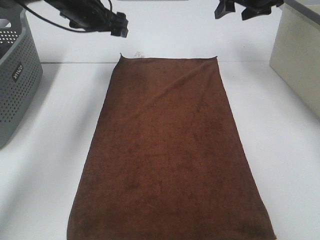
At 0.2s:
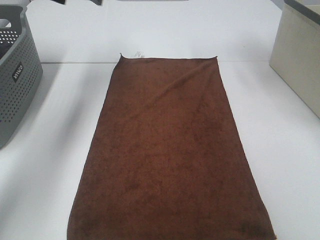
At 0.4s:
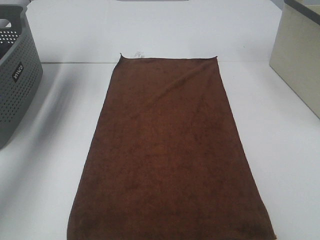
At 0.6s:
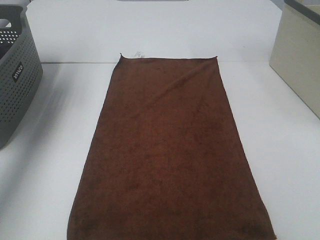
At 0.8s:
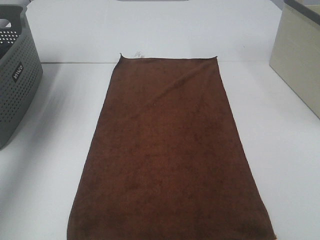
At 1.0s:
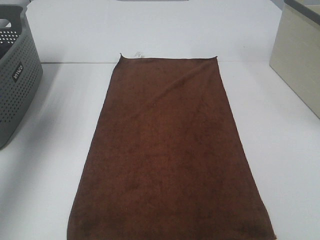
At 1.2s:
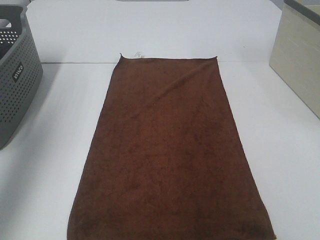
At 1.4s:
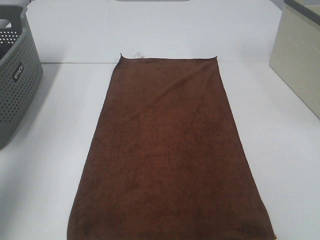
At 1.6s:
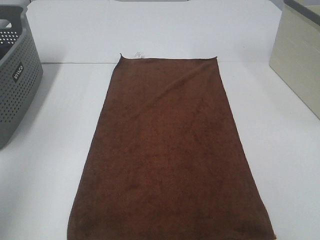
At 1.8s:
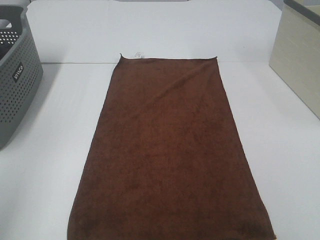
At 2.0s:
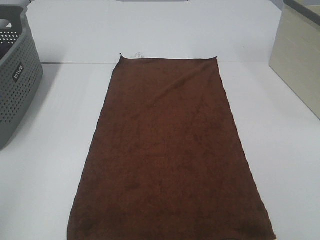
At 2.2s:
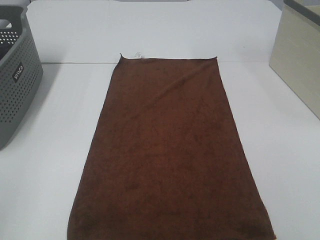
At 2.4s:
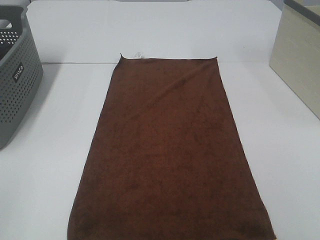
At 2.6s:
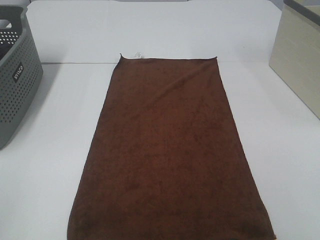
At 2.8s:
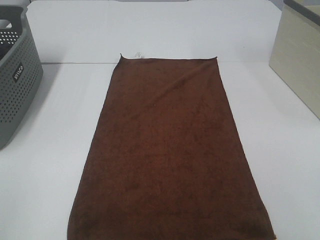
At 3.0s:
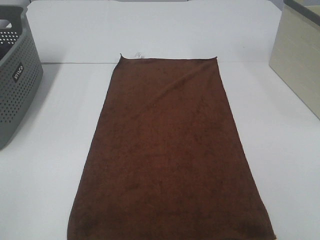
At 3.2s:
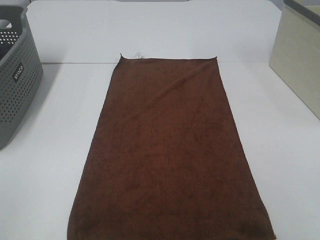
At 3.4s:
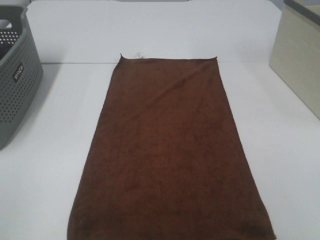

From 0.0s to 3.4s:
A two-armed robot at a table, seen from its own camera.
Task of the whole recording: Remove the towel and place it.
From 0.0s to 1.6s: Both grippers travel together backward, some 40 cm.
From 1.6s to 3.4s: The left gripper shifts about 15 cm backward and downward.

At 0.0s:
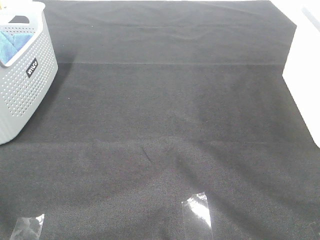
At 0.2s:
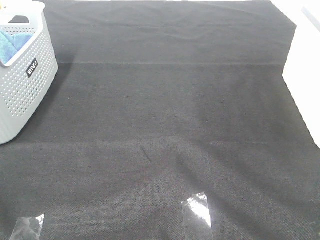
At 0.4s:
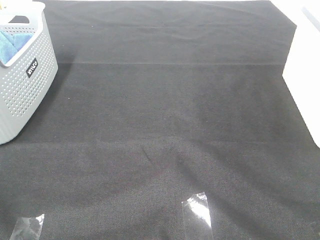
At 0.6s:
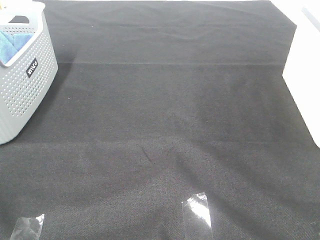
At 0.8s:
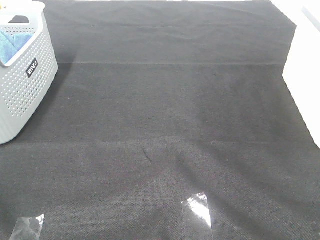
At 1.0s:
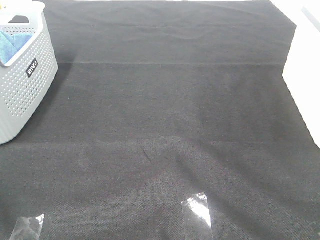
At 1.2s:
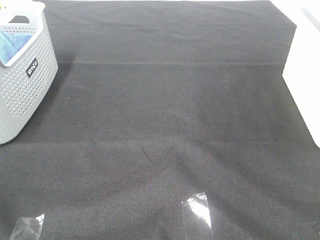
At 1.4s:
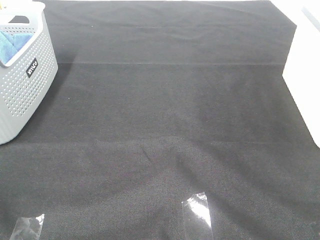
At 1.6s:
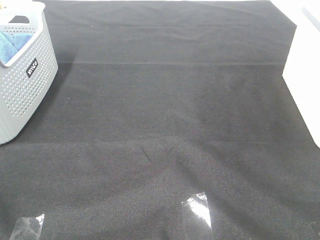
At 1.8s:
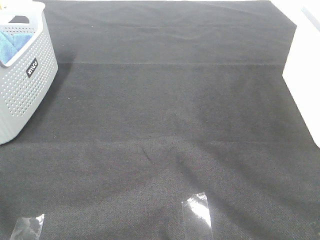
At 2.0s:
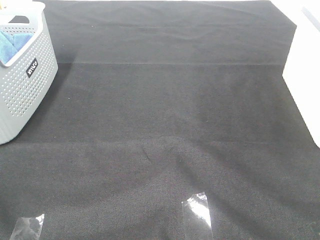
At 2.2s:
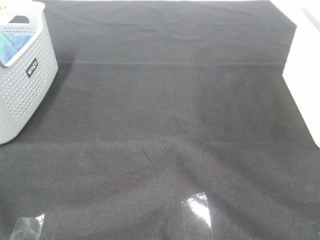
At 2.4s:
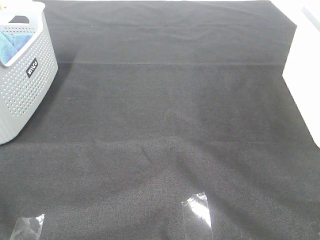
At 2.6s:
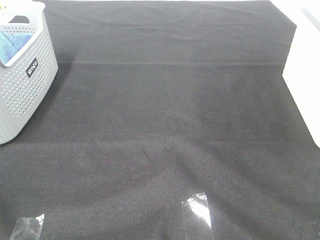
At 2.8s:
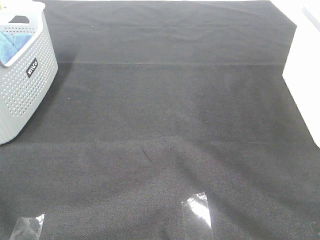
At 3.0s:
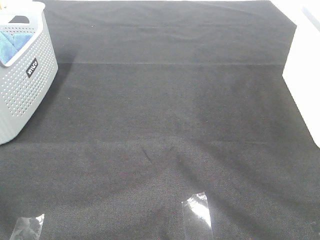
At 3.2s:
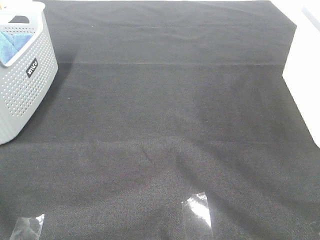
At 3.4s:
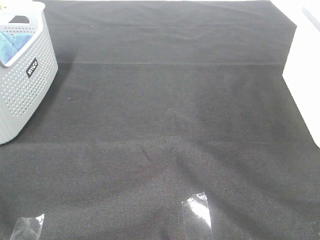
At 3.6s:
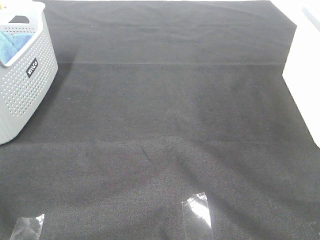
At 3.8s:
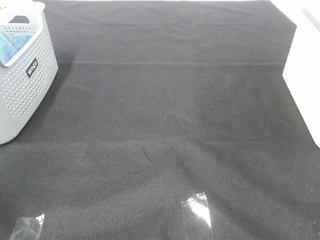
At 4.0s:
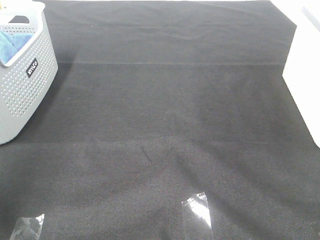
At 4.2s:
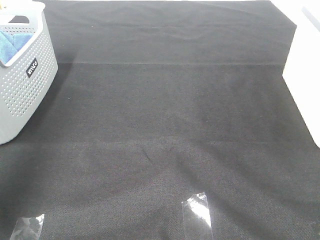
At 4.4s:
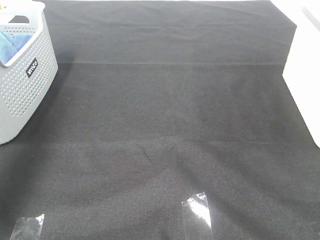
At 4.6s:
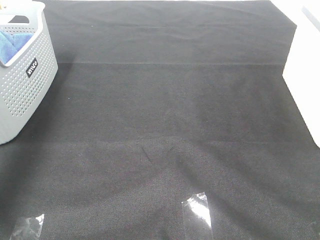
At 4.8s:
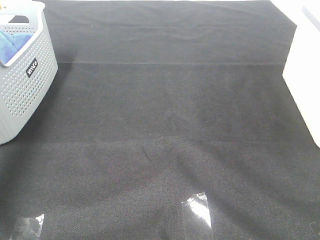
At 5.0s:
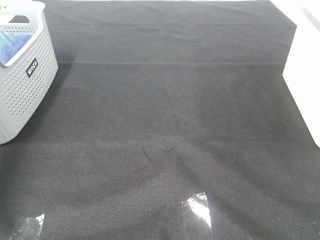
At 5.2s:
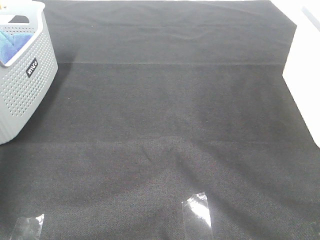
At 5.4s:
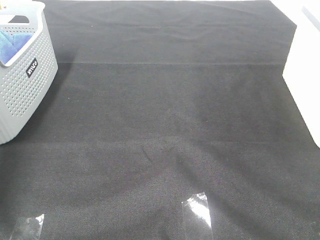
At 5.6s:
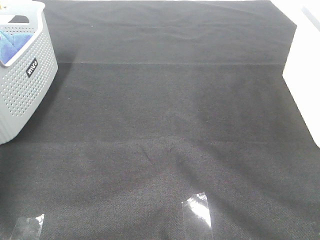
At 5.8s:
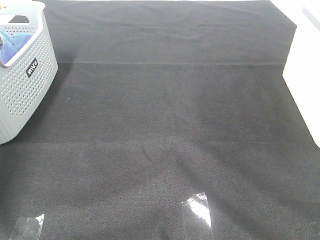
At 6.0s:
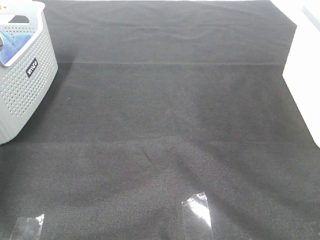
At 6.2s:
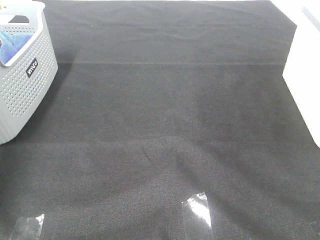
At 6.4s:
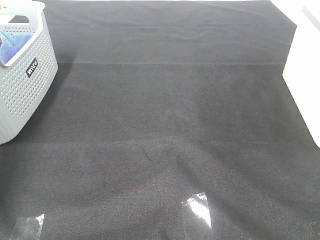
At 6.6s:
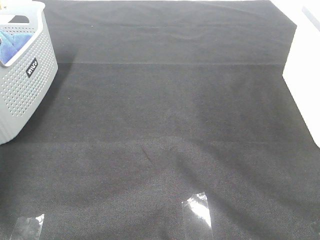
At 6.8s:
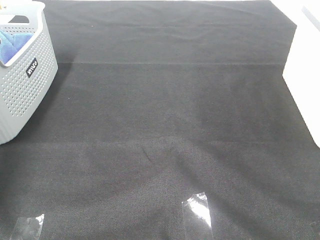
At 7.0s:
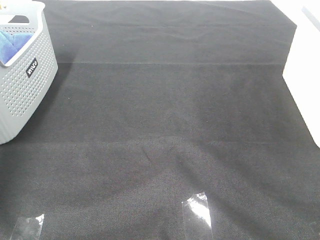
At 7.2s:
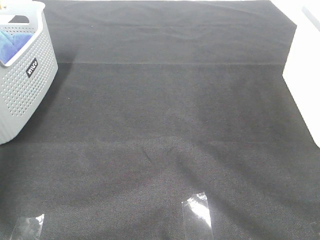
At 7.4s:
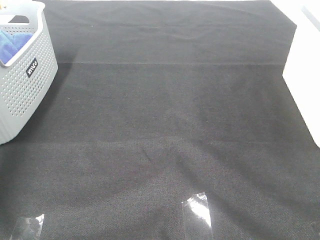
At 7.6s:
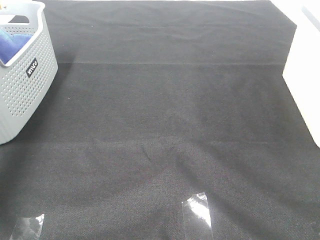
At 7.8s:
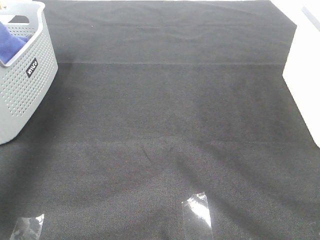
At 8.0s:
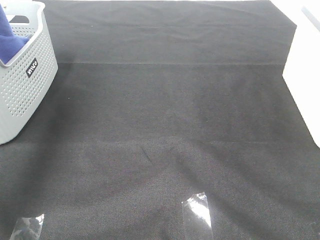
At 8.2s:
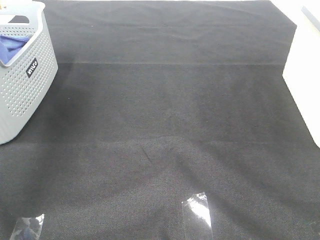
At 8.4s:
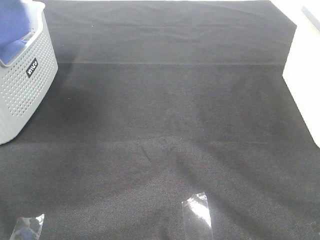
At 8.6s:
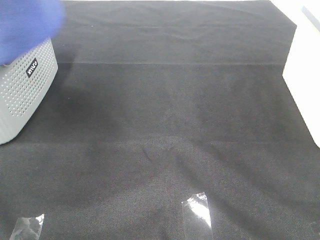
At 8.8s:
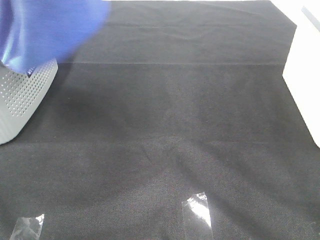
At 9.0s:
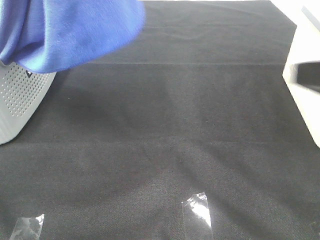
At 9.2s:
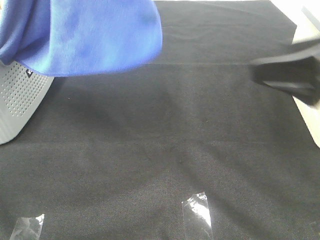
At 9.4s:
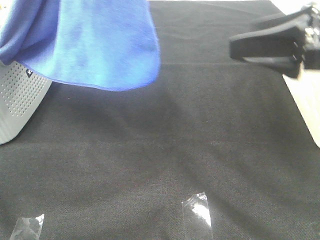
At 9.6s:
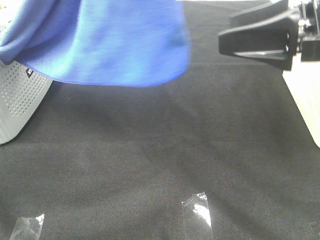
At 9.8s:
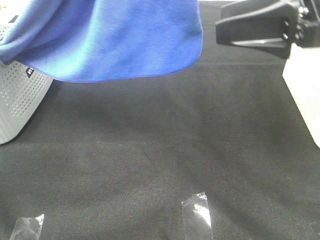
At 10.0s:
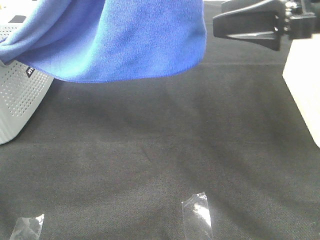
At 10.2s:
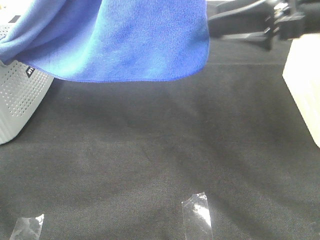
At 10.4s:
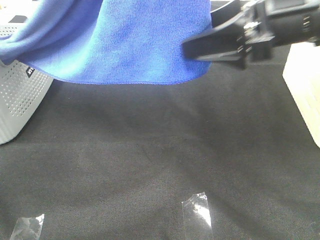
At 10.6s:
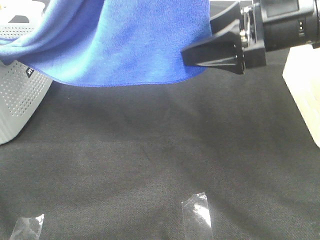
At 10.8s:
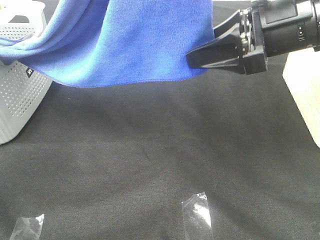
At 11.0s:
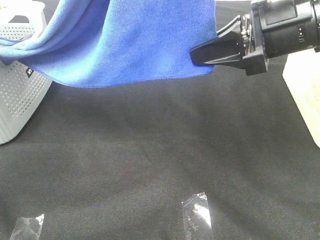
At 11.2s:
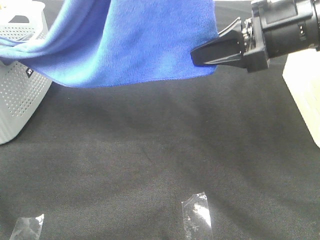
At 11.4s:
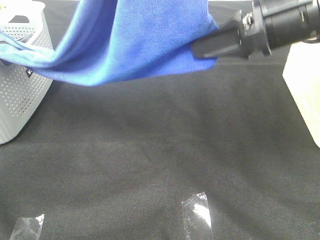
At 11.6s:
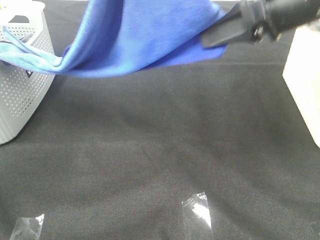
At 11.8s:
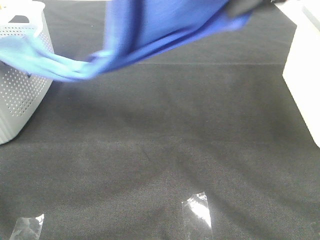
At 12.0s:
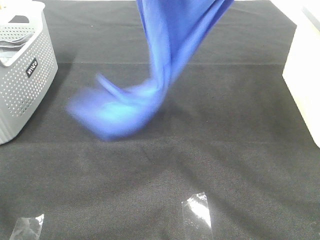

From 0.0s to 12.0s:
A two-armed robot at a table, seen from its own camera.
Task of the whole recording: Remove the towel and place it.
Step, from 7.6s to 10.6s: Right hand: grab a corner of the blue towel and straighten it.
From 0.0s to 3.0s: Both grippers stay about where they are.
From 3.0s to 4.4s: The left gripper travels forward and upward by roughly 35 cm.
From 4.4s to 6.0s: The left gripper shifts about 30 cm downward and forward, and closes up.
From 7.6s to 9.0s: The left gripper goes about 30 cm to the right, backward and upward. Meanwhile the right gripper heads forward, covering approximately 15 cm.
From 9.0s to 10.4s: The right gripper travels forward and to the left by approximately 15 cm, while the left gripper moves to the right, approximately 10 cm.
From 10.4s to 12.0s: The left gripper travels forward by some 10 cm. The right gripper travels upward by some 15 cm, and closes its fingers.

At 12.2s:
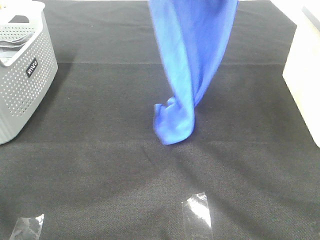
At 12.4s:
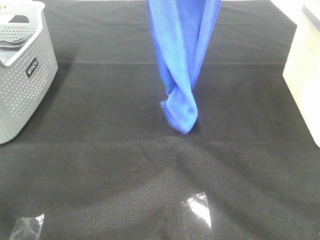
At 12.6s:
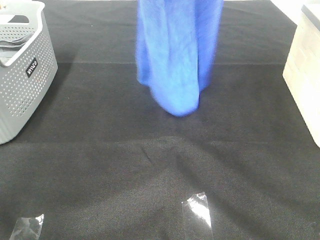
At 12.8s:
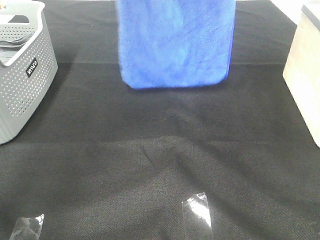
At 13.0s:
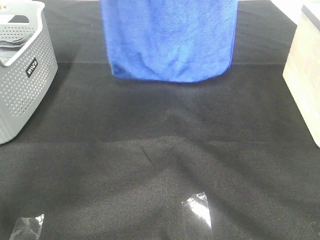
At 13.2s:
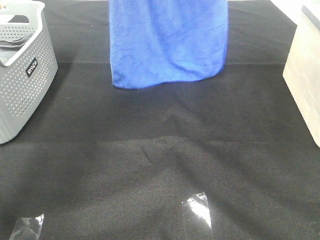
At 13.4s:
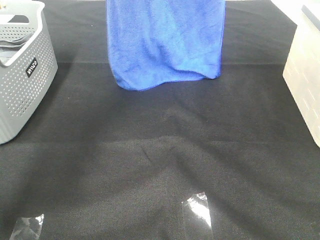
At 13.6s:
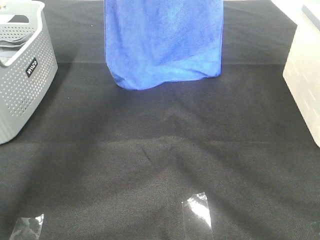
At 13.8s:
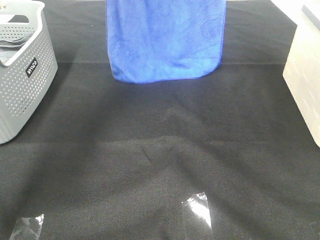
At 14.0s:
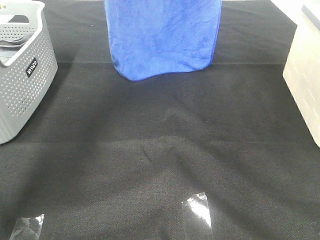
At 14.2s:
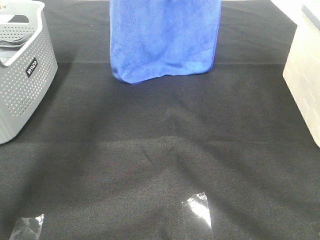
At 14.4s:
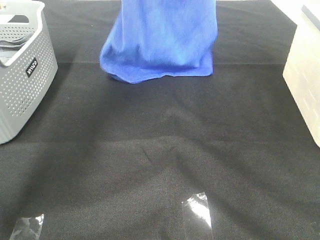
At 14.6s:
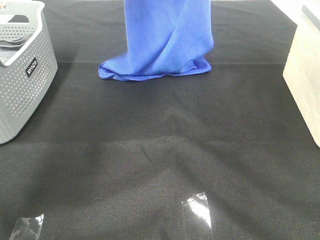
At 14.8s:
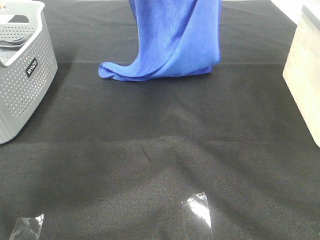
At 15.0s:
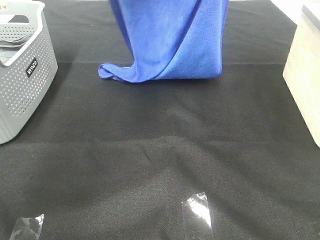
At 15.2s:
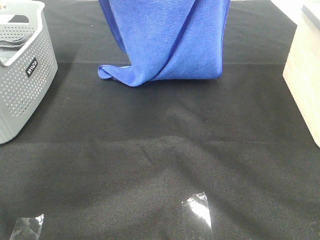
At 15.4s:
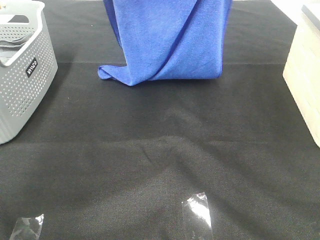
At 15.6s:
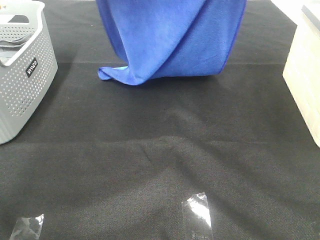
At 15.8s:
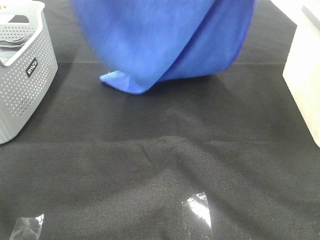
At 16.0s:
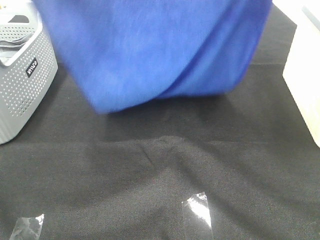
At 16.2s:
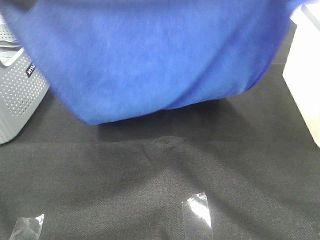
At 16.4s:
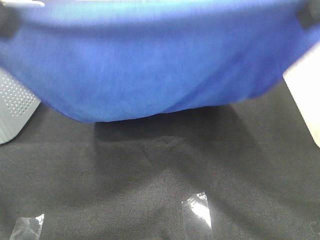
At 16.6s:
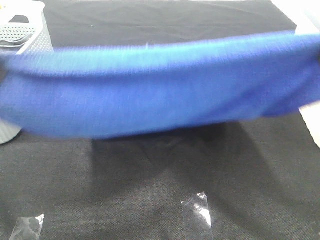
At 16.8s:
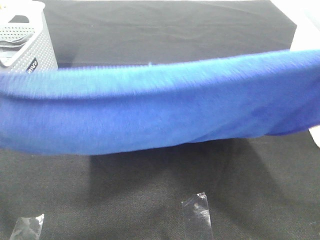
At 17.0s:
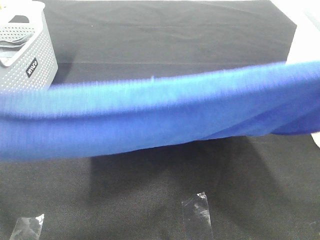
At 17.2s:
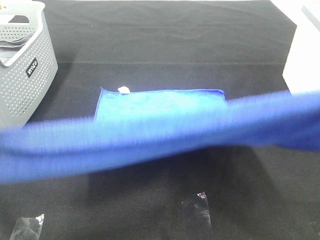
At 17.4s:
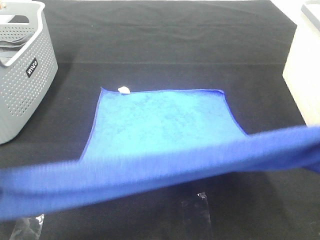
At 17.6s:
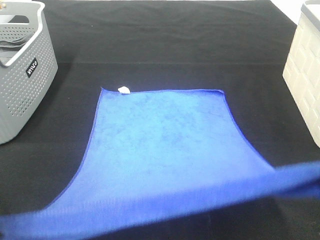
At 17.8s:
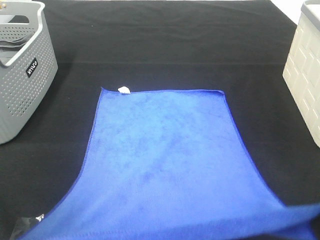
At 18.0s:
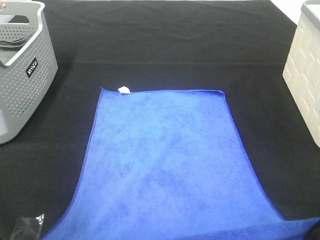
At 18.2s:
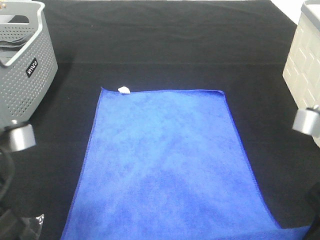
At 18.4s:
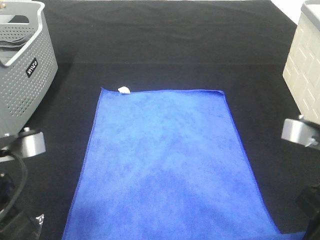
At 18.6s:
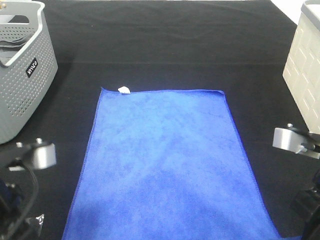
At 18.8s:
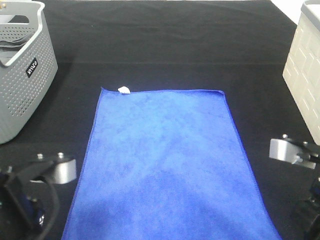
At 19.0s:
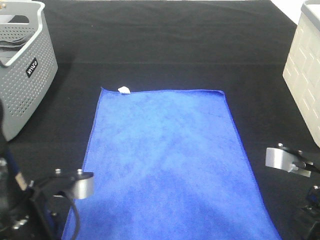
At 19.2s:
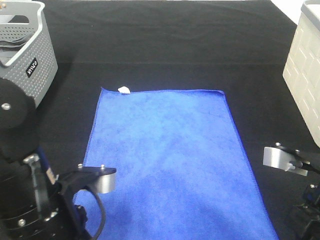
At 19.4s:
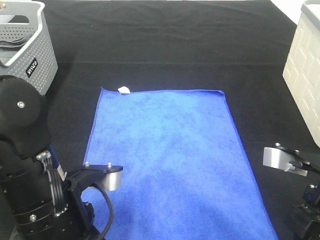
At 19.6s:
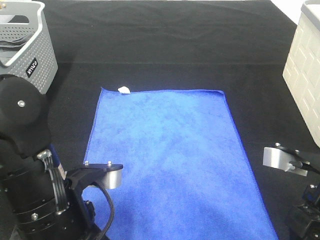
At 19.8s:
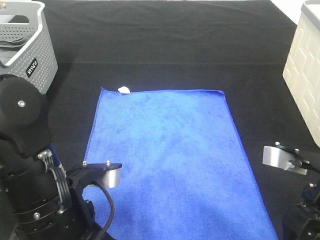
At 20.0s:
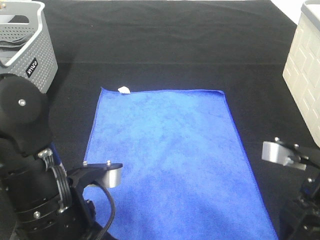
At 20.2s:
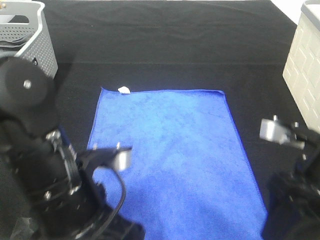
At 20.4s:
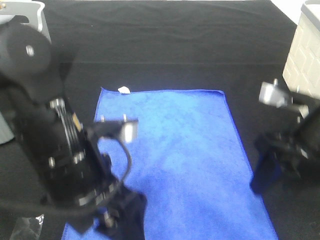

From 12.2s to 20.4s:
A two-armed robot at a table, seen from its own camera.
Task of the whole recording: Remove the towel and place it.
Step, from 12.2s to 15.8s: Left hand: spread the blue towel flat on the table.
Step, from 12.2s to 15.8s: Right hand: spread the blue towel flat on the table.
From 12.2s to 13.8s: Both grippers move forward, roughly 15 cm.
From 13.8s to 15.4s: Both grippers move backward, roughly 10 cm.
From 15.4s to 17.2s: The two grippers go approximately 30 cm backward.
From 17.2s to 18.8s: Both grippers travel together downward, about 15 cm.
From 18.8s to 20.4s: The left gripper is displaced to the right and forward by roughly 10 cm, and opens its fingers; the right gripper travels forward by approximately 5 cm, and opens.
